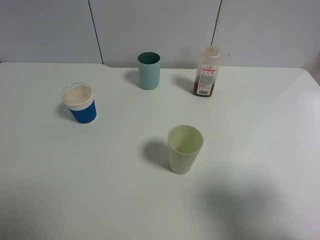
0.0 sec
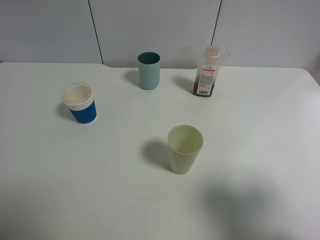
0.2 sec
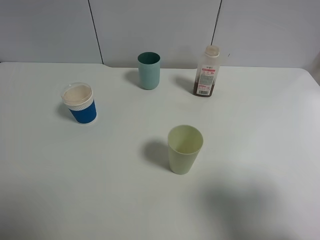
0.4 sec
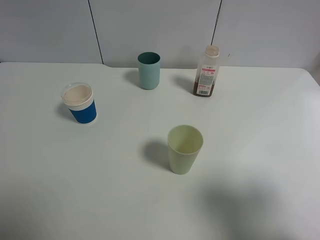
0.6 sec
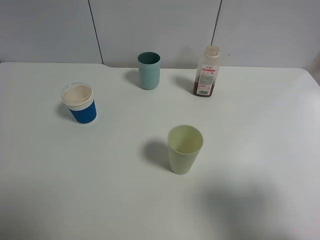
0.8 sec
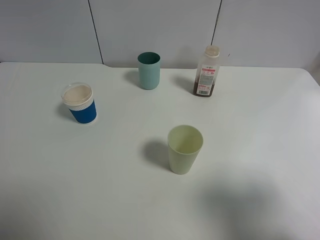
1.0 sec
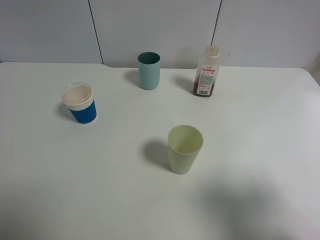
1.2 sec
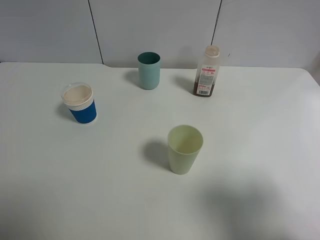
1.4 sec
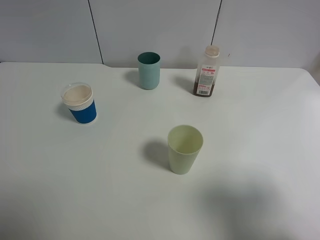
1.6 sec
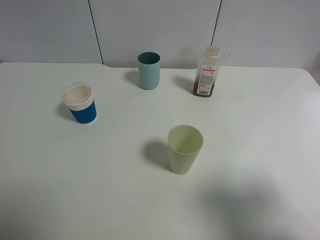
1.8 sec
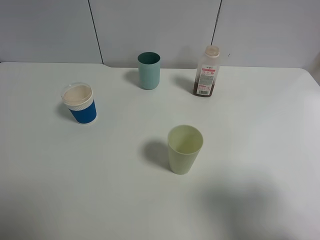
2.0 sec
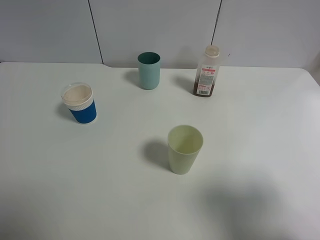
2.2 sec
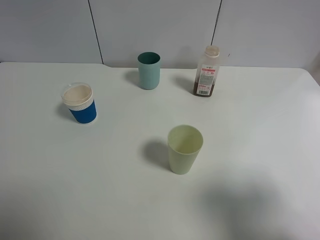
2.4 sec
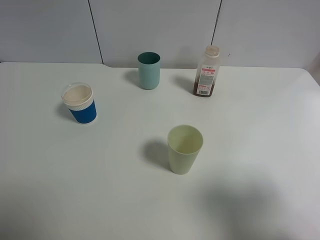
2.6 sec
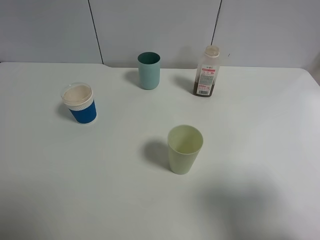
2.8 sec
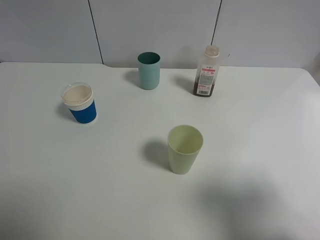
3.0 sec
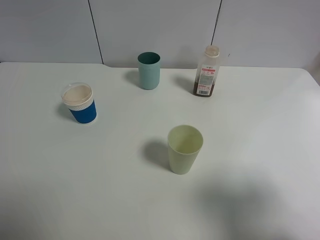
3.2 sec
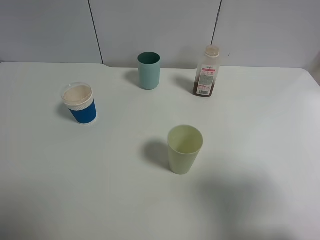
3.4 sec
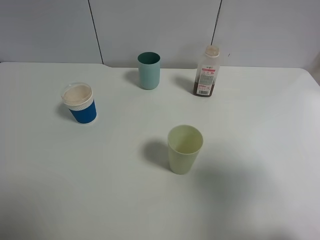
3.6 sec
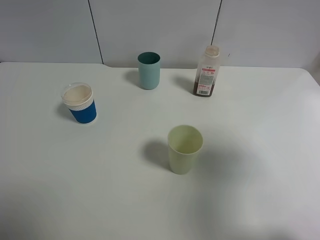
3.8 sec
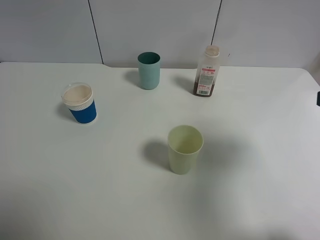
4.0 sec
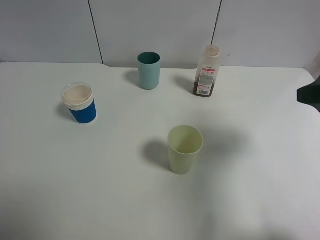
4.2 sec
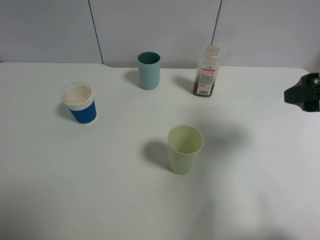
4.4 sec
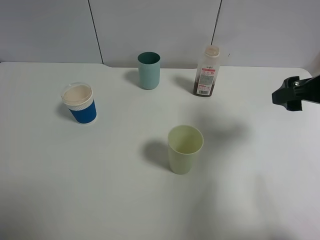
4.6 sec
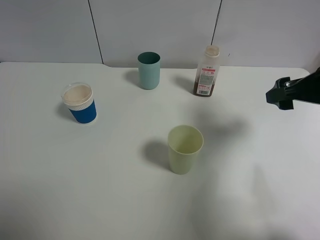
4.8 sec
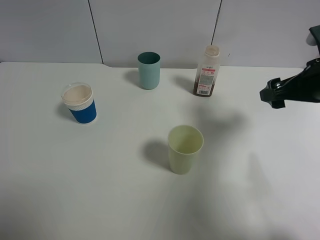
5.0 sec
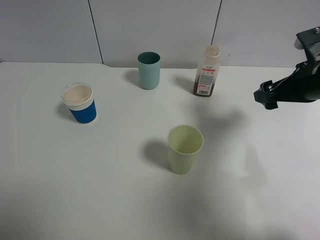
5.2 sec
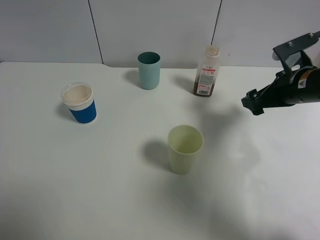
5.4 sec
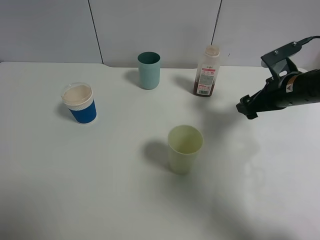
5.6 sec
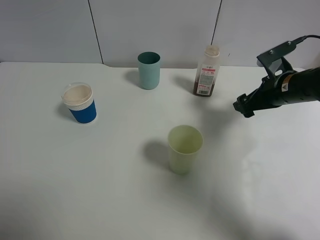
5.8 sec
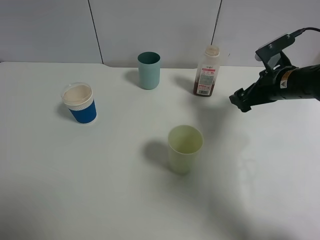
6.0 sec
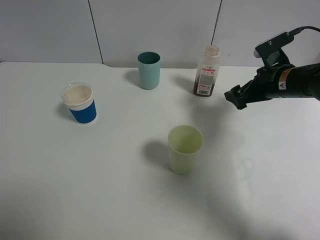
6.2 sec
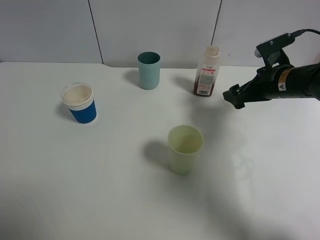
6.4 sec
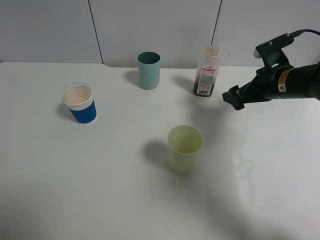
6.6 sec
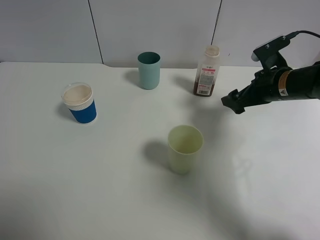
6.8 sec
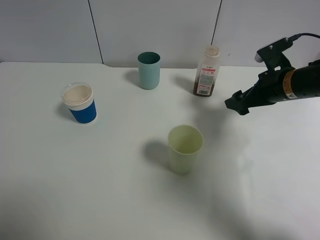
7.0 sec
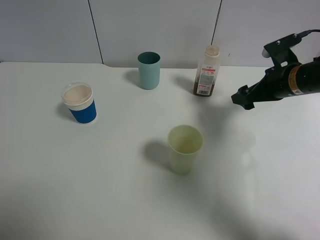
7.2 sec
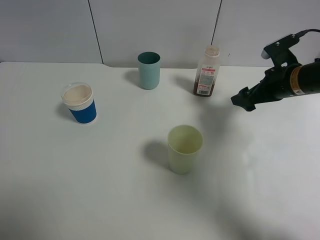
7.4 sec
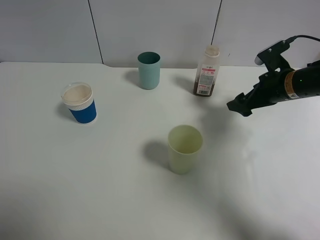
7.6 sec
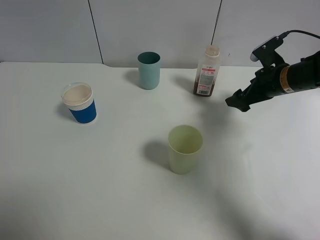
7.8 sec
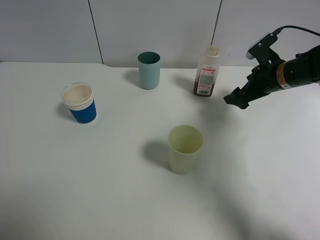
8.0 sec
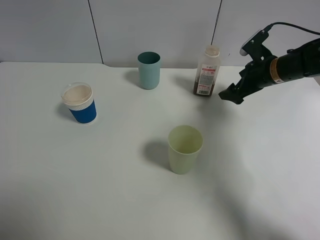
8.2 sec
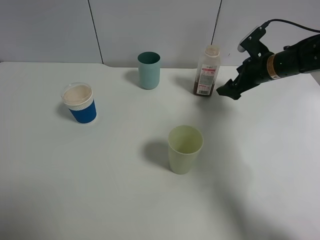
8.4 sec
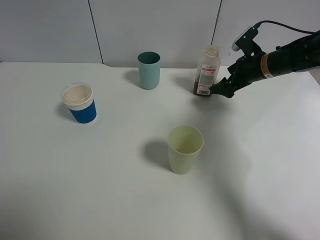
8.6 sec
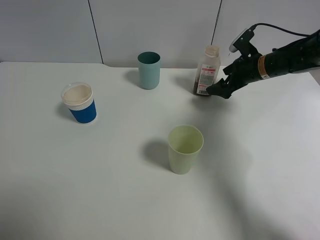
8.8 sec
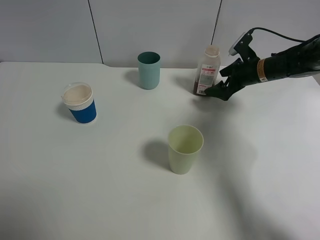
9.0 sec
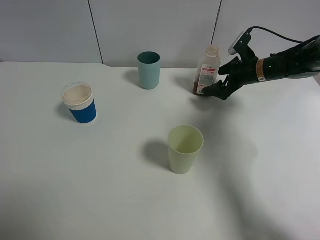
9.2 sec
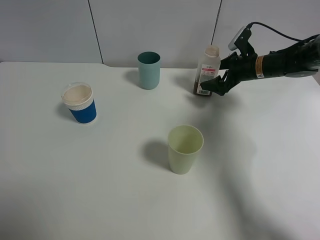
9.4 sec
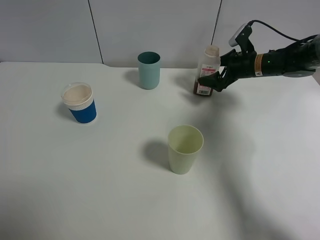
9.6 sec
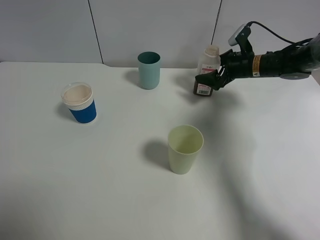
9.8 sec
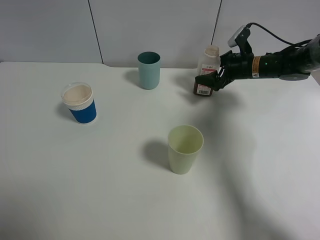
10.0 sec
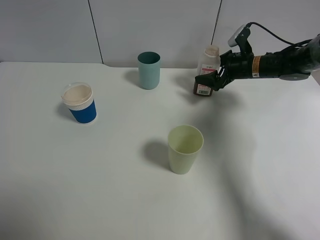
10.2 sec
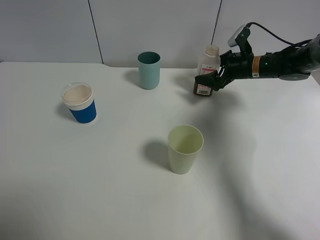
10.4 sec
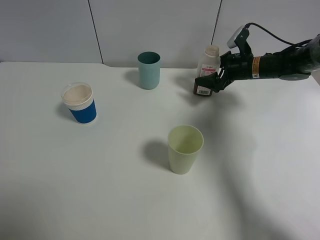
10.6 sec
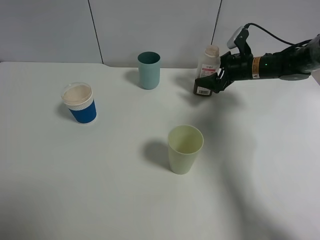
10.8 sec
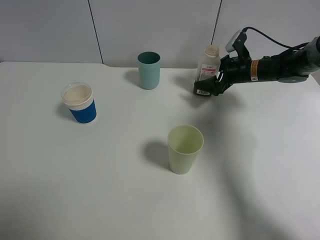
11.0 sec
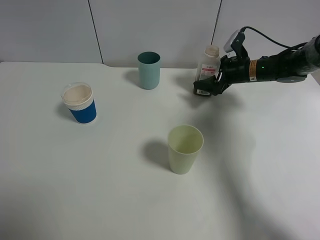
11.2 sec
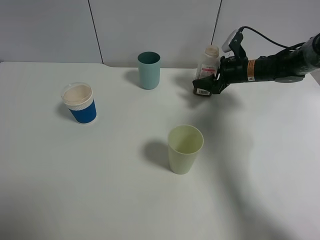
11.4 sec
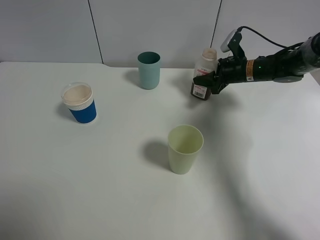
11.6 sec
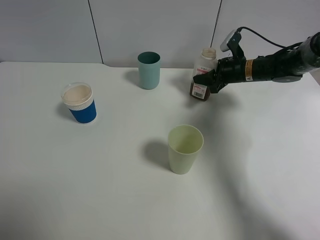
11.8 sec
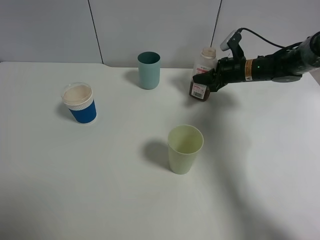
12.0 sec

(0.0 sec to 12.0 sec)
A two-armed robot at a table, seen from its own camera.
Task of the whole recording: use a gripper to hold the bottle of the drink and pour it into a random cup.
Step, 0.0 sec - 11.6 sec: Grasp the cranberry juice bottle with the right gripper.
0.0 sec - 3.0 sec: Both grippers stay put.
3.0 sec - 4.4 sec: The right gripper heads forward, covering about 20 cm.
4.4 sec - 6.0 sec: The right gripper moves forward and downward, about 15 cm.
6.0 sec - 7.6 sec: The grippers stay close to where they were, moving slightly.
7.6 sec - 9.0 sec: The right gripper travels forward by approximately 10 cm.
9.0 sec - 10.4 sec: The grippers move only a little.
10.4 sec - 12.0 sec: The right gripper closes up.

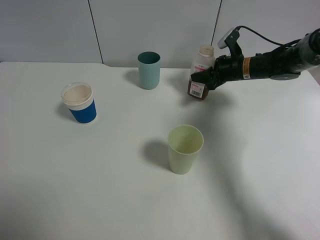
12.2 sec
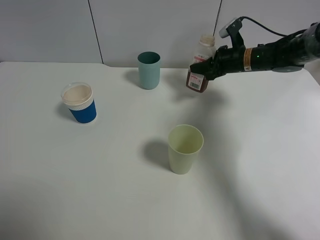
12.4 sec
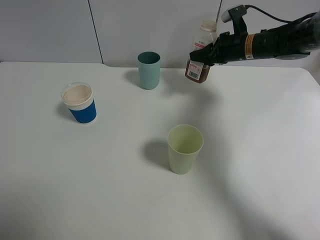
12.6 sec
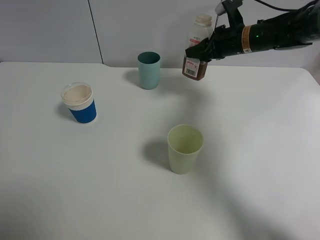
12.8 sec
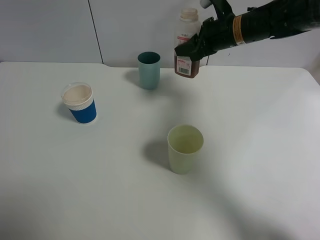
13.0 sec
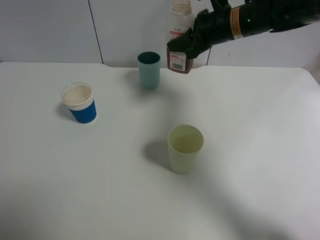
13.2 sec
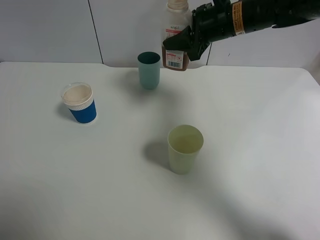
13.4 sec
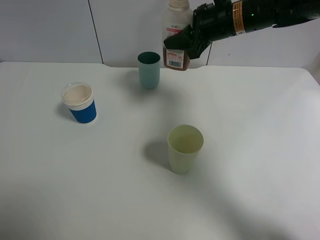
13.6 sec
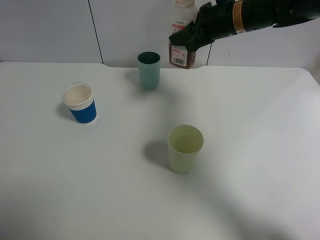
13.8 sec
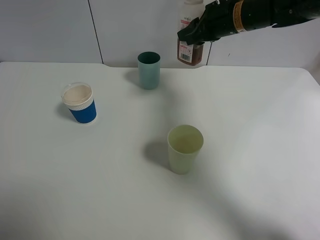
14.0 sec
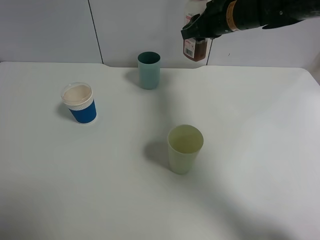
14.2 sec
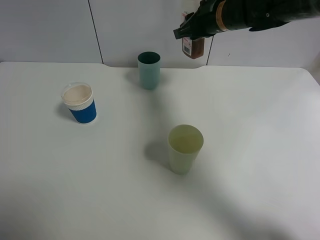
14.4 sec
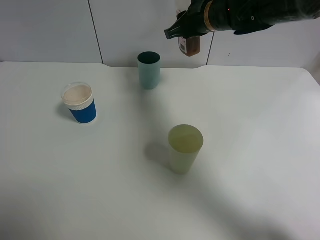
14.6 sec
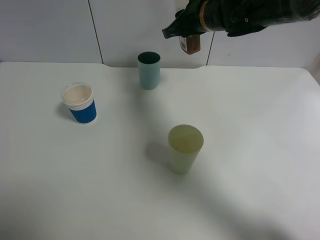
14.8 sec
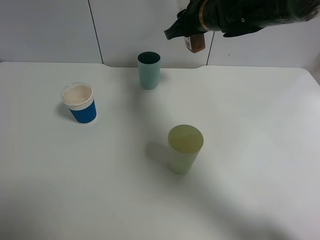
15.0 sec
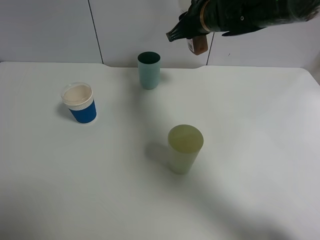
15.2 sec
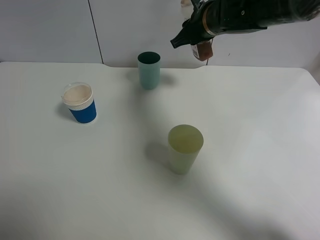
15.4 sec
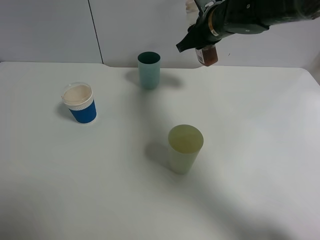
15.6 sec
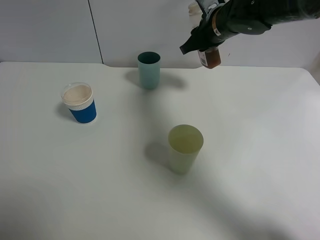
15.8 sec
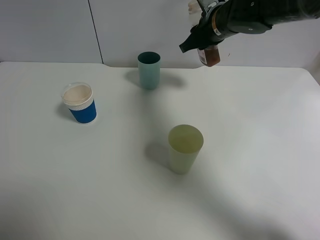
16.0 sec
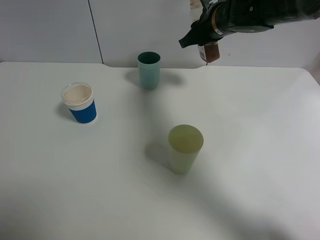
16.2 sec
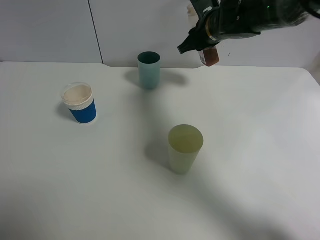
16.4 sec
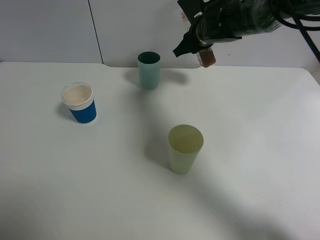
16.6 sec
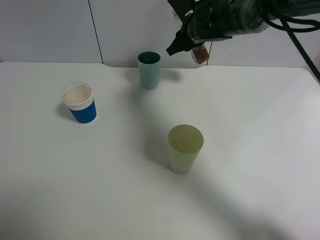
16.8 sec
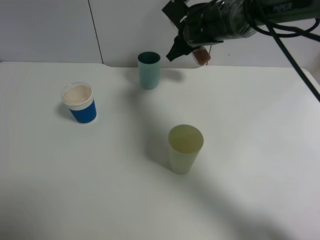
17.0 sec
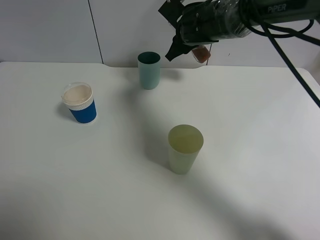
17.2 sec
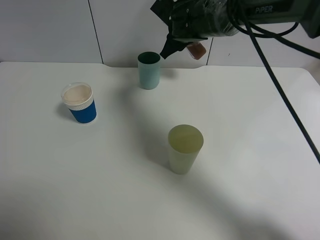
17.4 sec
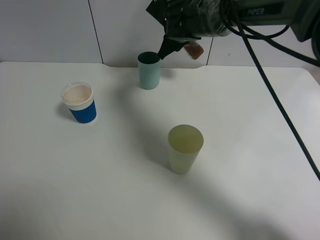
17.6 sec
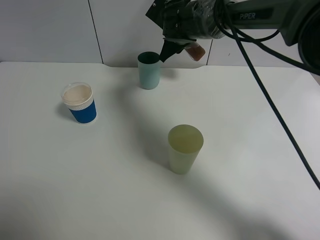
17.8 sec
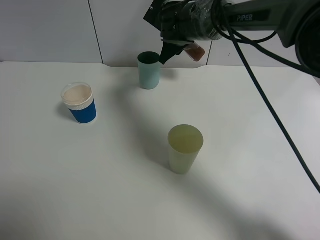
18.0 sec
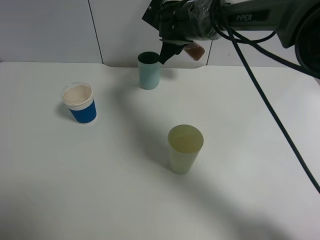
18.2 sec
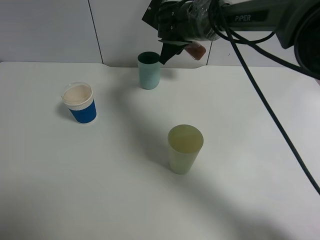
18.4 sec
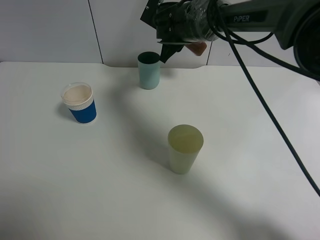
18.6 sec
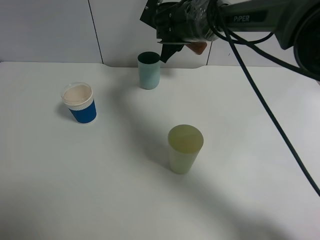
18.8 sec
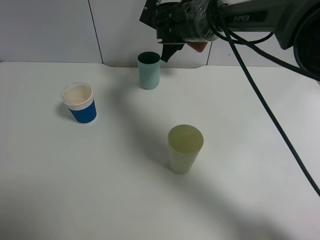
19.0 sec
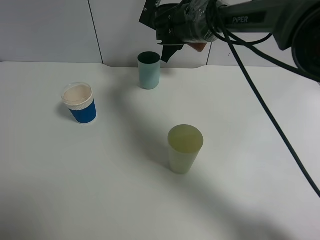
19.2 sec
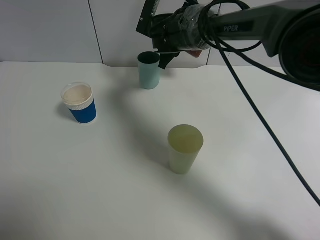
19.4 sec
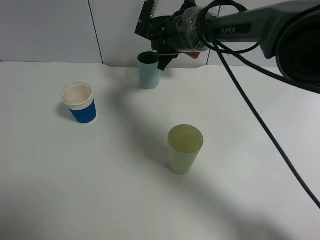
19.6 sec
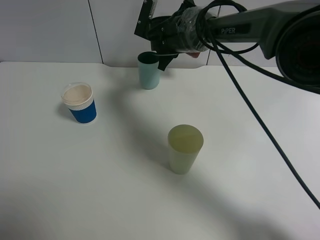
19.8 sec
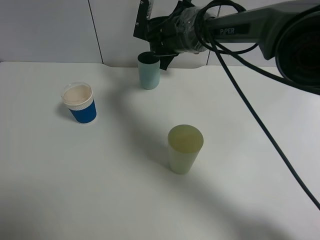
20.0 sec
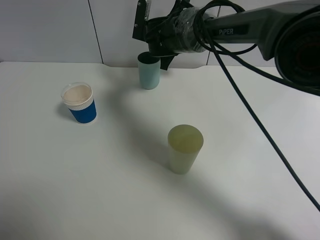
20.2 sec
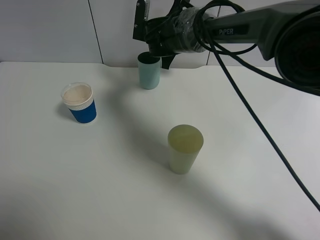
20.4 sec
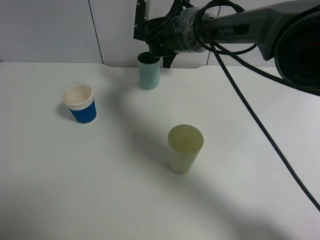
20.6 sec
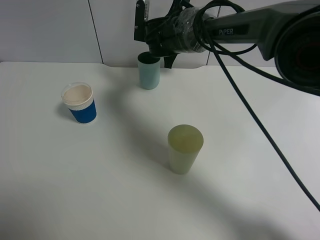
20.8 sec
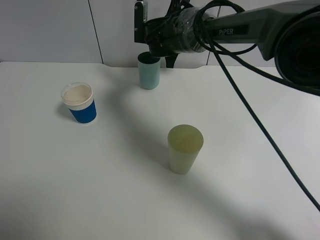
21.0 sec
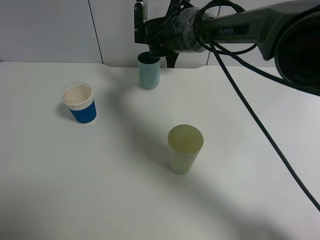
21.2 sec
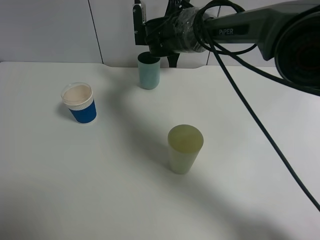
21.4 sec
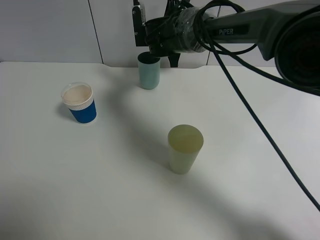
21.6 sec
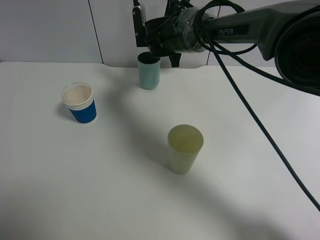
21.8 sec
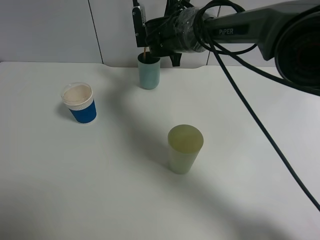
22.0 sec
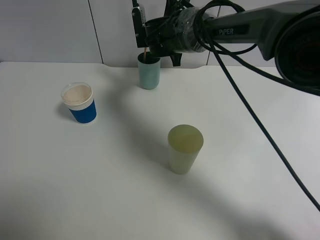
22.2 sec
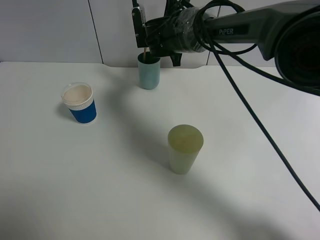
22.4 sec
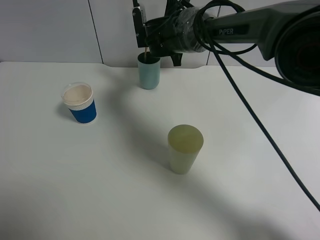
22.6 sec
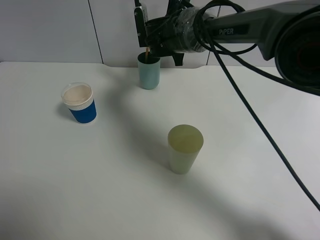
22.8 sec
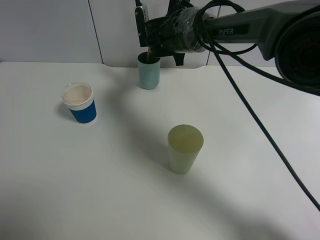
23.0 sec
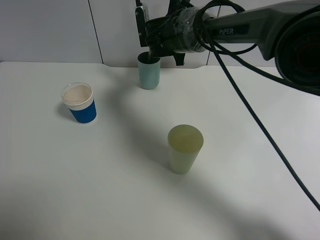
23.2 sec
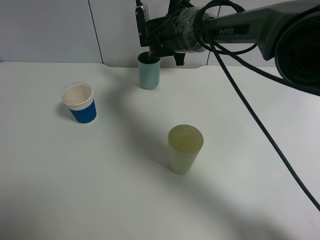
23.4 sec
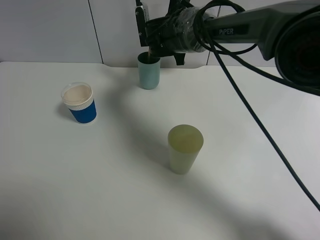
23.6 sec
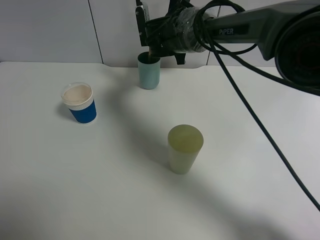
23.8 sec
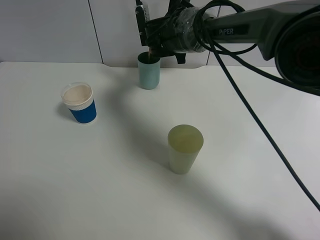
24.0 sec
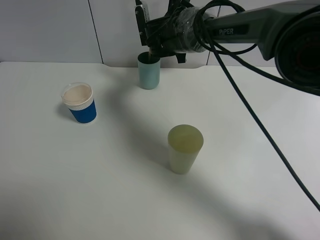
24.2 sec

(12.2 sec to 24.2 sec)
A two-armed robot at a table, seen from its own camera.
Task of the whole recording: use a gripper to hold the bottle of the drink and pour it into a random cup.
12.2 sec - 13.8 sec: The right gripper moves upward and to the left, approximately 15 cm.
15.2 sec - 16.6 sec: The right gripper ends up some 5 cm from where it was.
16.6 sec - 18.2 sec: The right gripper heads to the left, covering roughly 5 cm.
18.2 sec - 19.8 sec: The grippers make only small movements.
19.8 sec - 21.2 sec: There are only small adjustments of the grippers.
22.6 sec - 24.2 sec: The two grippers keep their place.
